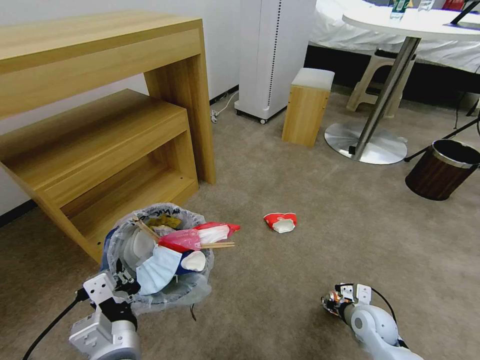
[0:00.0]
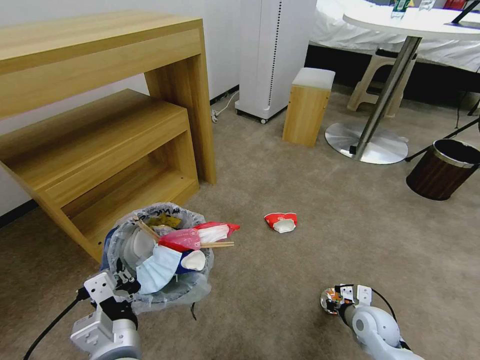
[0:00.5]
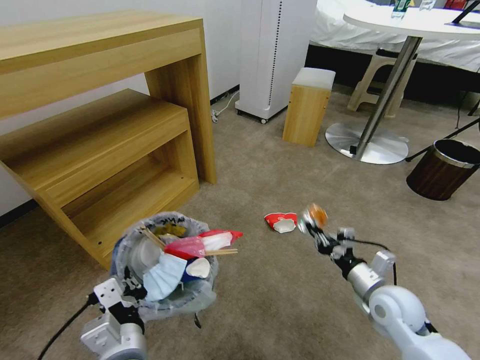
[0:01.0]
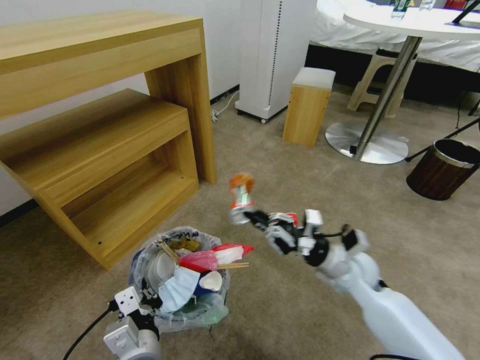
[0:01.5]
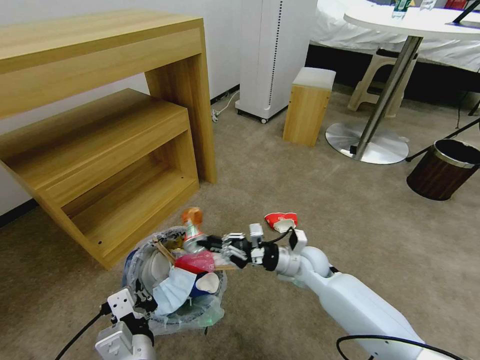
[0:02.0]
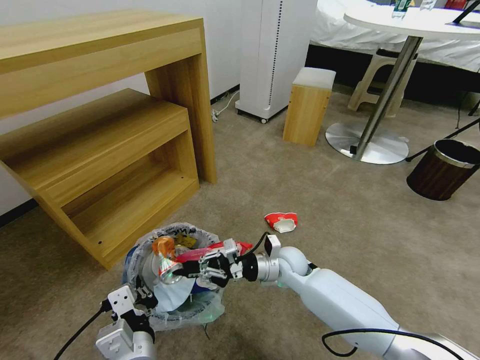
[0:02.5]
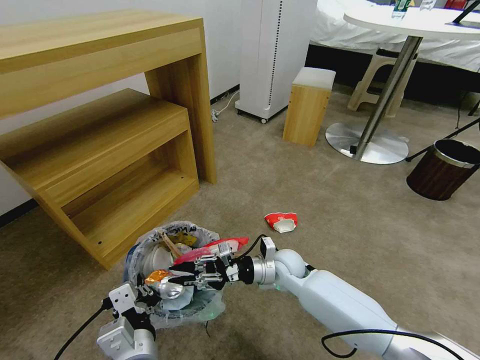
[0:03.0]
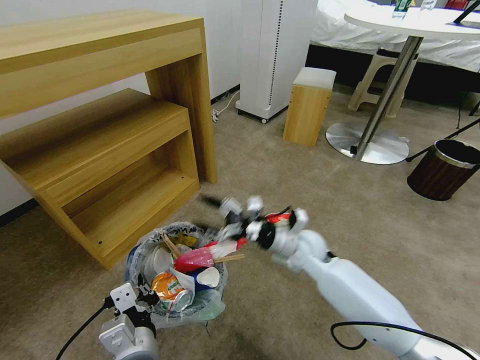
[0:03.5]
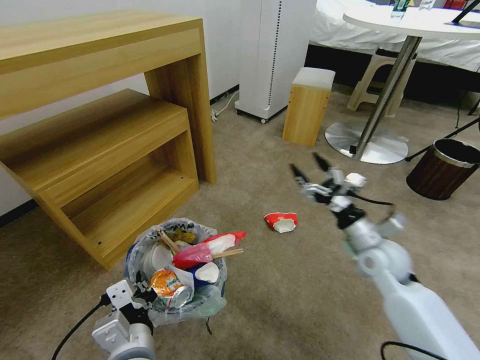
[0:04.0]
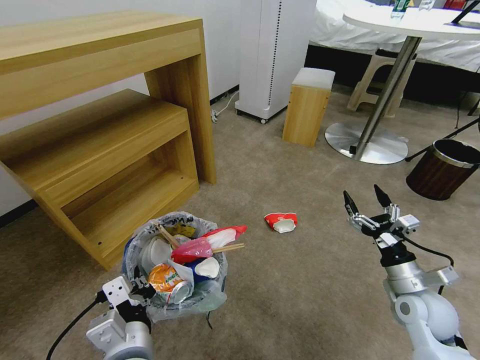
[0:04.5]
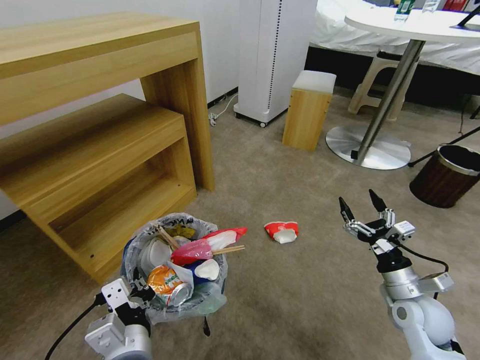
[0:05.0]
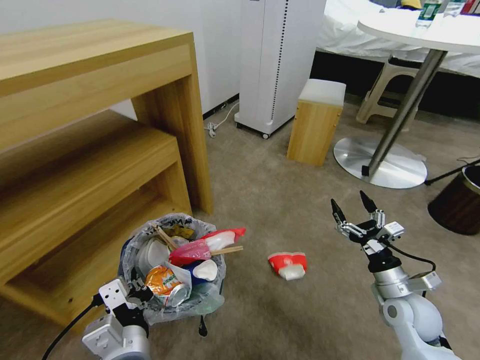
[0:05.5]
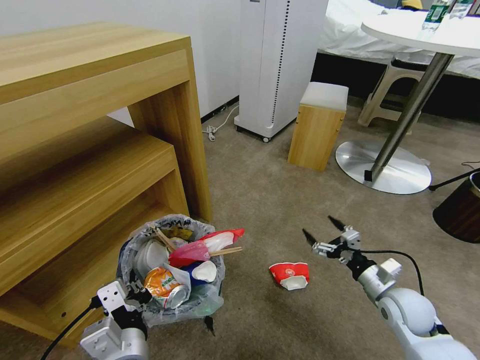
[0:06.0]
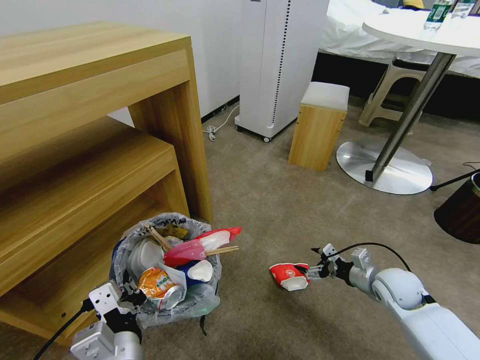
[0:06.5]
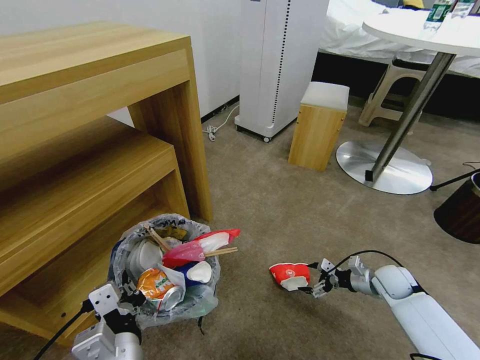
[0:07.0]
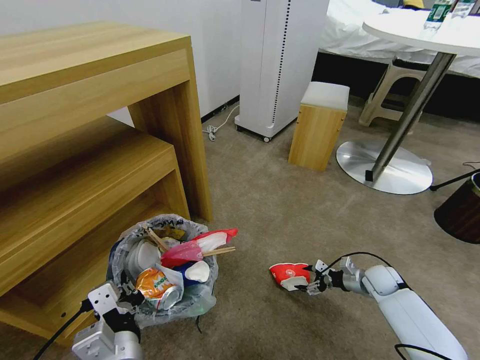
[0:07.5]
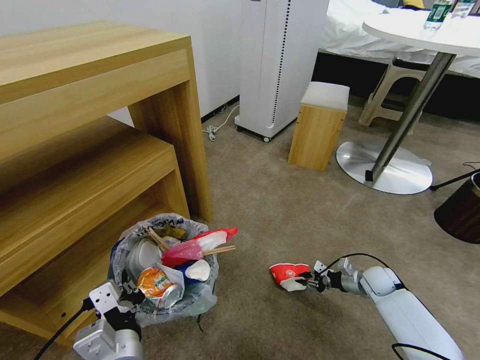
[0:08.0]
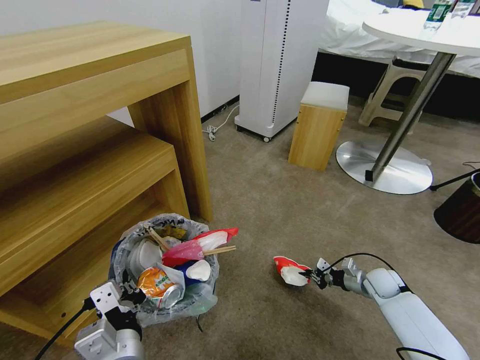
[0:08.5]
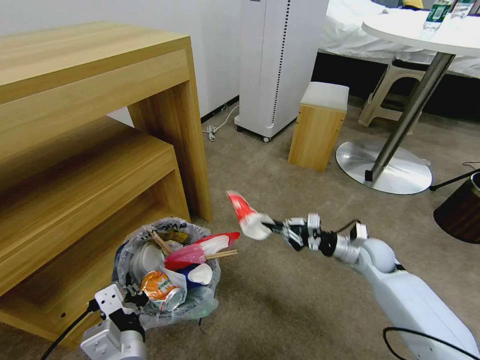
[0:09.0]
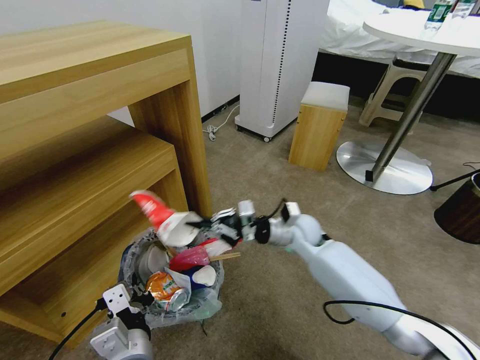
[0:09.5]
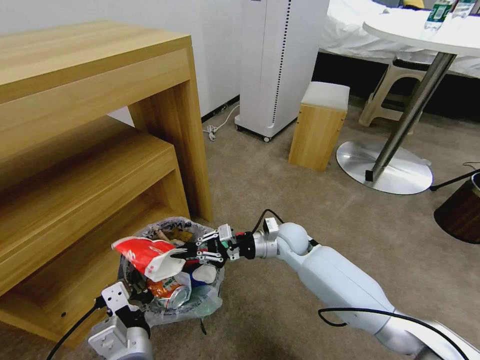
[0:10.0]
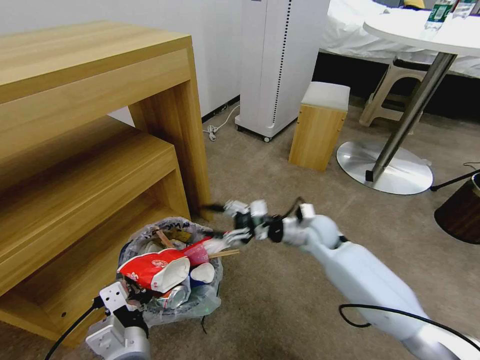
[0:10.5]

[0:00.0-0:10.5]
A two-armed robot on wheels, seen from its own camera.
Task of the whole recording: Pick up the trash bin and place the garbage on the floor into it.
0:00.0 to 0:02.0: The right gripper moves to the left, forward and upward, some 20 cm, and closes its fingers.
0:02.0 to 0:04.0: The right gripper is displaced to the right and upward by some 15 cm, and opens its fingers.
0:04.0 to 0:06.5: The right gripper moves downward and to the right, about 10 cm, and moves roughly 10 cm backward and comes back.
0:06.5 to 0:08.5: The right gripper goes roughly 10 cm downward and forward, and closes its fingers.
0:08.5 to 0:10.5: The right gripper goes some 30 cm to the left and upward, and opens up.

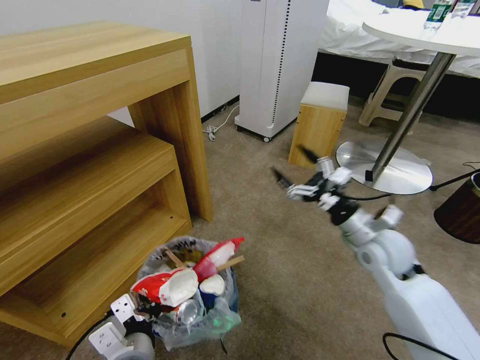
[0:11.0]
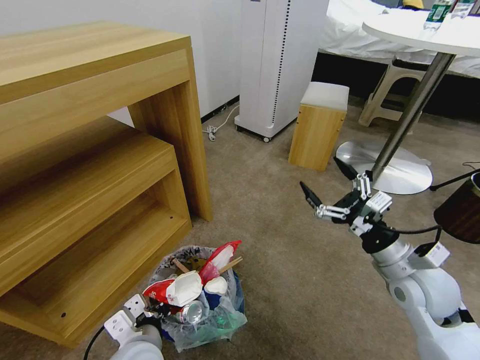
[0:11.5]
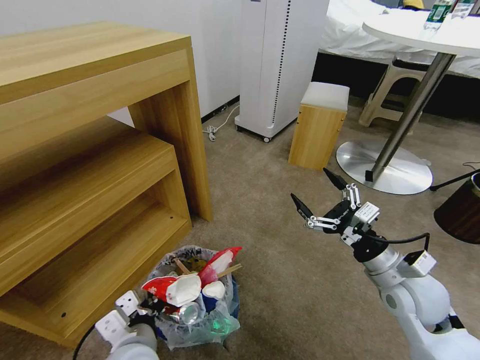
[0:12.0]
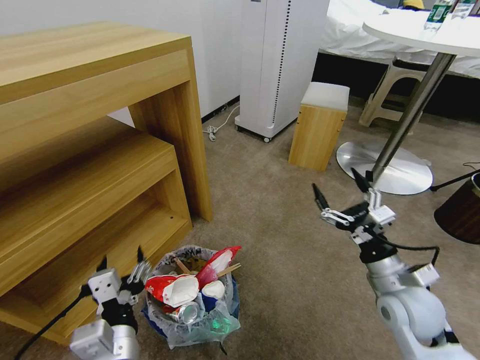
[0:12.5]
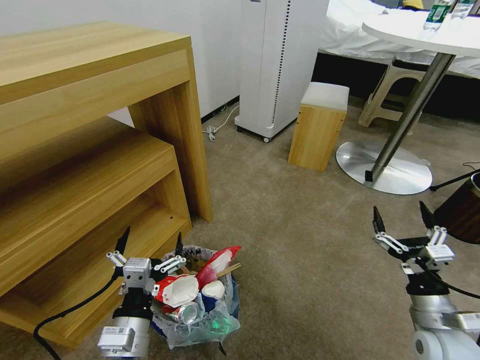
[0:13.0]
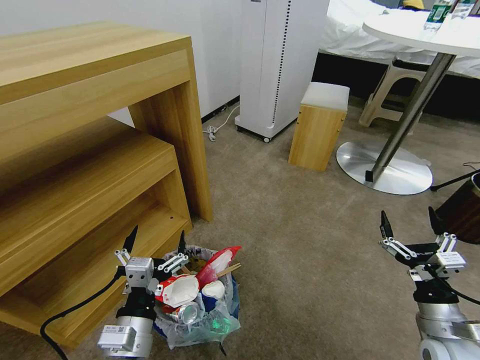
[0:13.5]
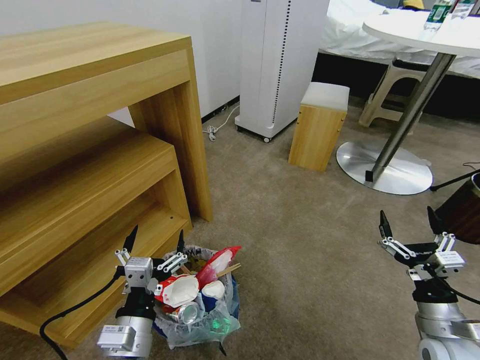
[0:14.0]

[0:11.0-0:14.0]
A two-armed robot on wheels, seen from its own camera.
Task of the whole recording: Pick up the trash bin and place the garbage on the floor into it.
0:11.0 to 0:12.5: The right gripper is displaced backward by roughly 10 cm. The left gripper opens.
0:12.5 to 0:14.0: The right gripper shifts roughly 10 cm backward, to the right and downward.

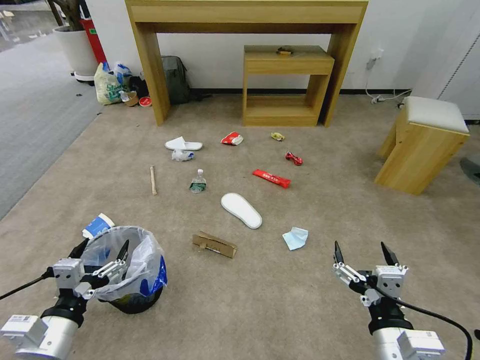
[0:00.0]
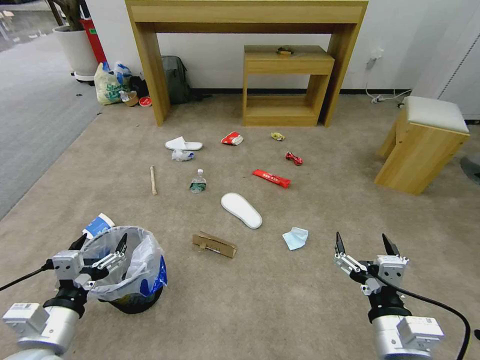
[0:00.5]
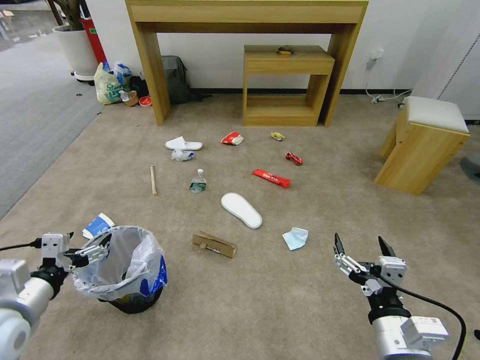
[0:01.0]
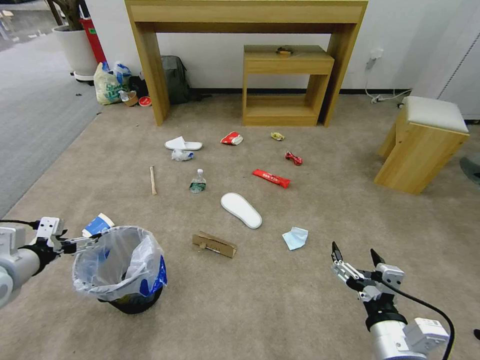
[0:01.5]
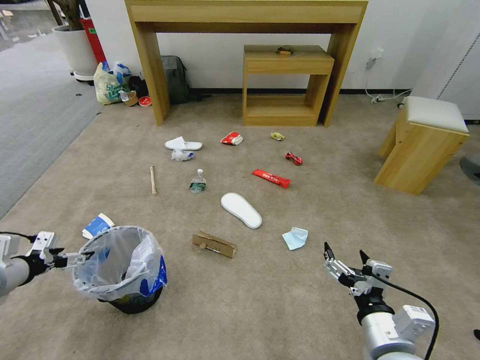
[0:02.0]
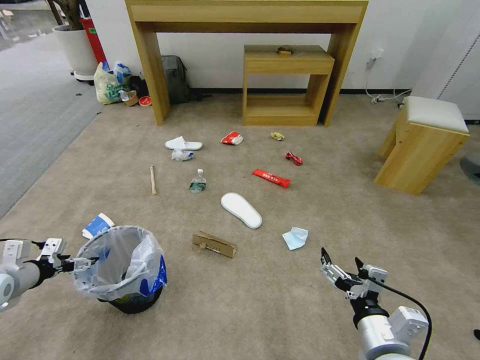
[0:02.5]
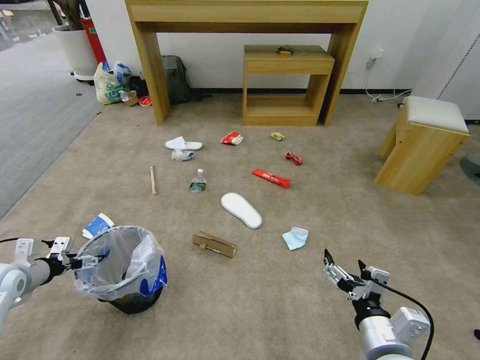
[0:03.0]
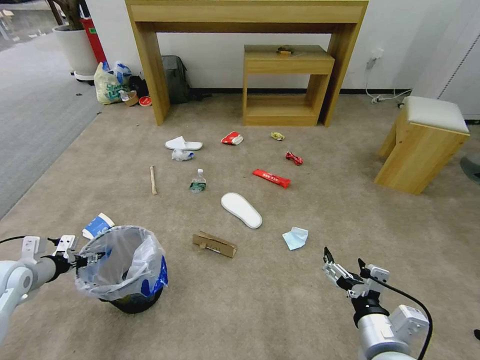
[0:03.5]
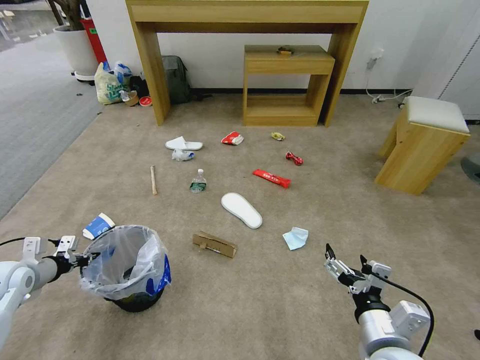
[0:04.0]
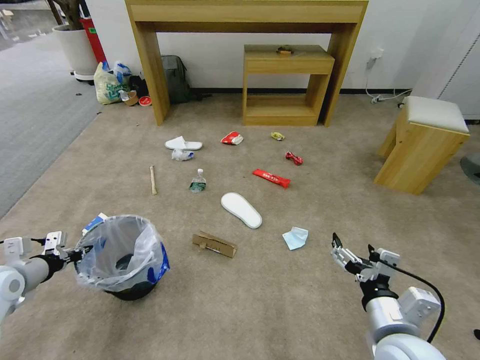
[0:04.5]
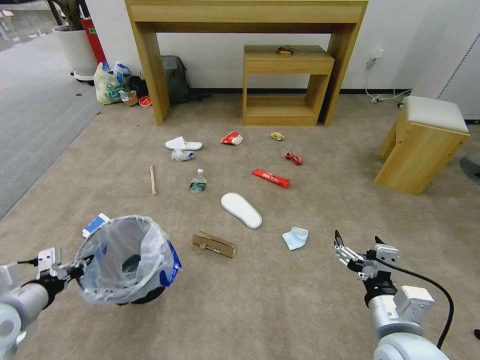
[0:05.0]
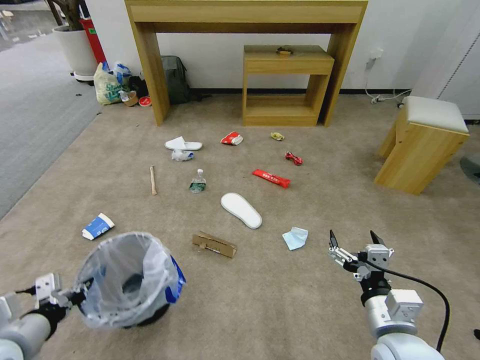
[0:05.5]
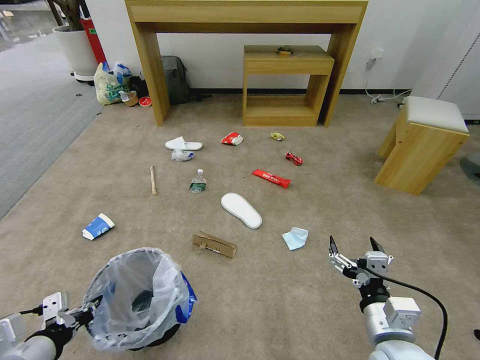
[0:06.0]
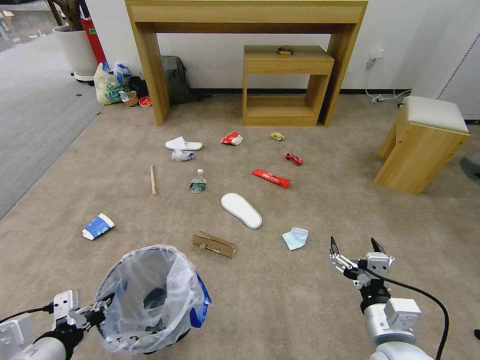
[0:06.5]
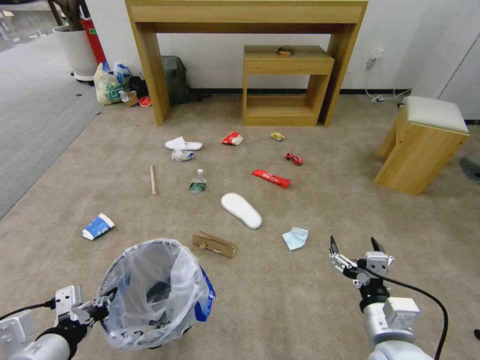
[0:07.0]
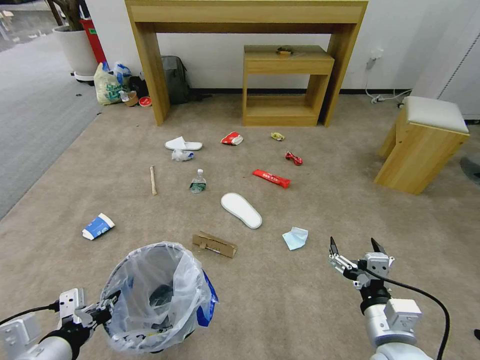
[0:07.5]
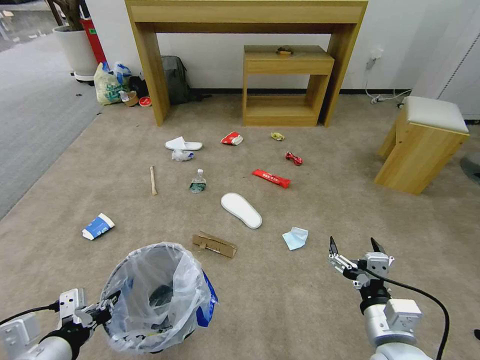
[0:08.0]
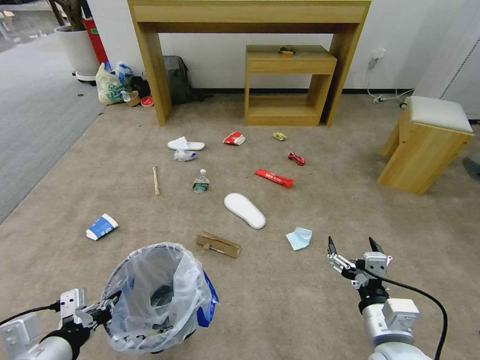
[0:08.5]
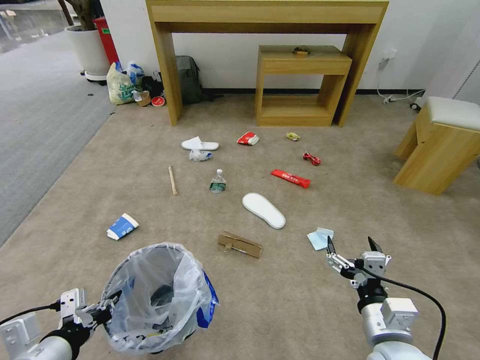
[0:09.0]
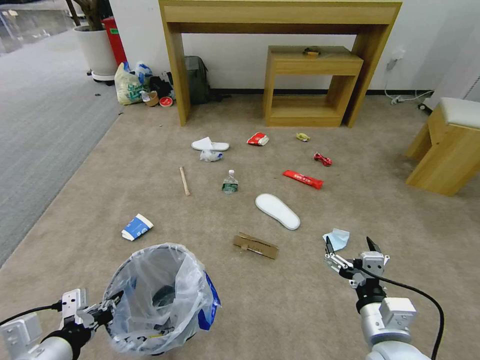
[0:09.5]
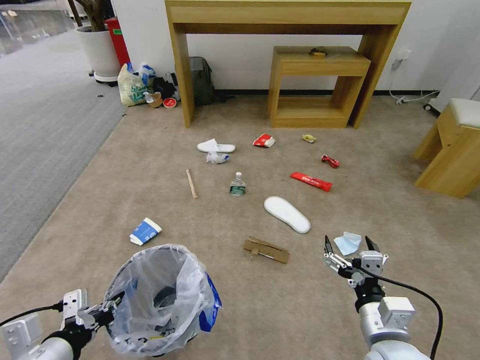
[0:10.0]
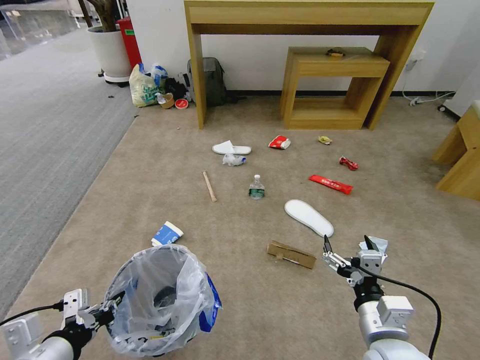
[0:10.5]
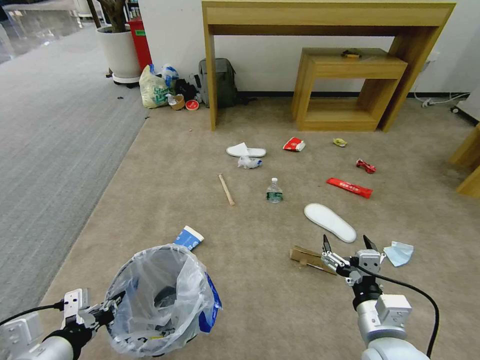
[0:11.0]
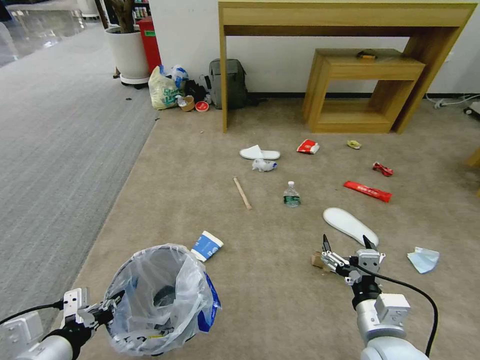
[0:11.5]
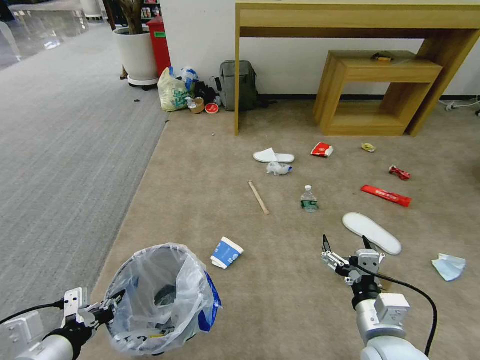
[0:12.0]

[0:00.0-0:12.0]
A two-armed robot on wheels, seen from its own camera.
Task of the whole recording: Pick up the trash bin and place the garbage on the floor into it.
0:02.0 to 0:04.0: The left gripper moves downward, some 5 cm, and closes.
0:04.0 to 0:06.0: The left gripper is displaced backward and to the right by some 25 cm.
0:06.0 to 0:08.0: The left gripper ends up approximately 5 cm from where it was.
